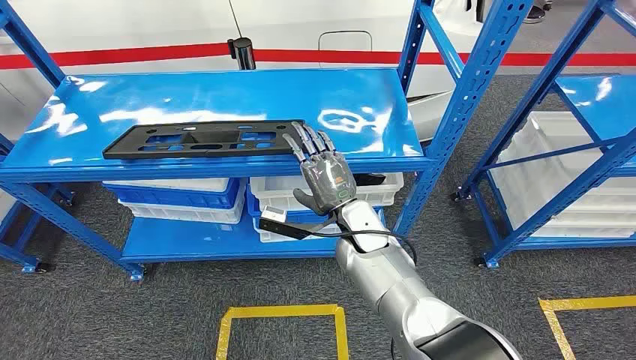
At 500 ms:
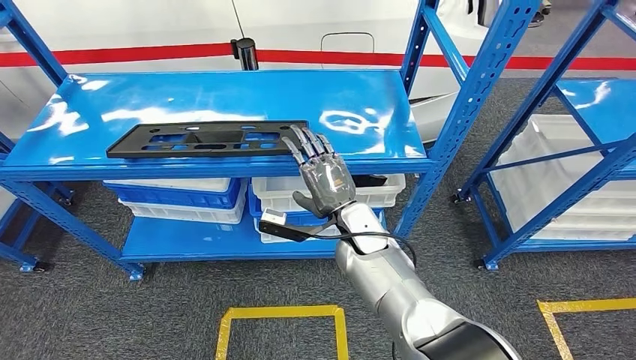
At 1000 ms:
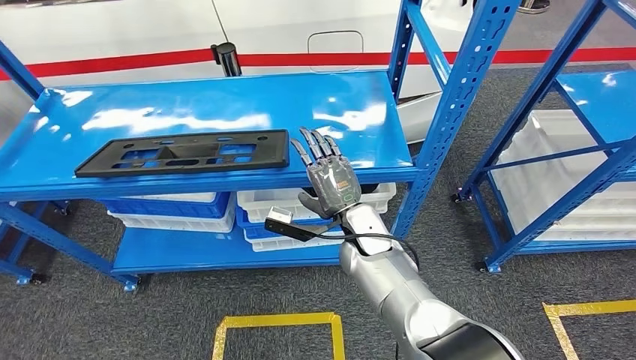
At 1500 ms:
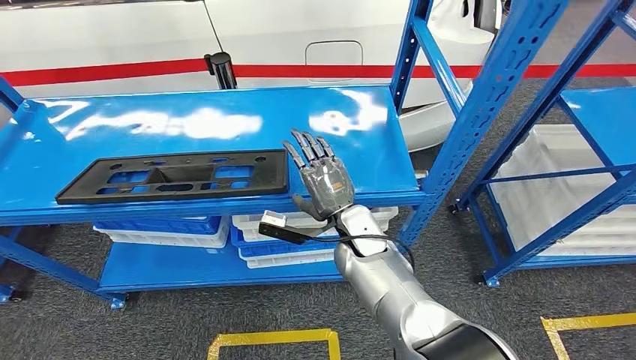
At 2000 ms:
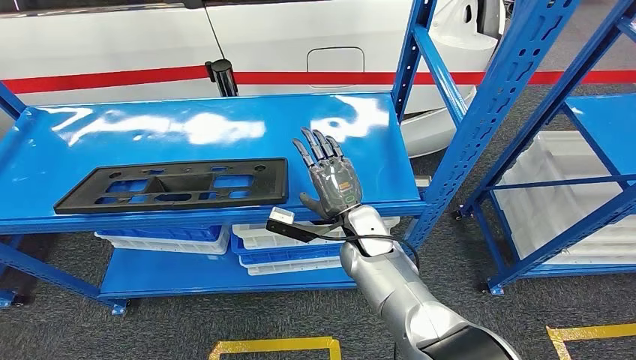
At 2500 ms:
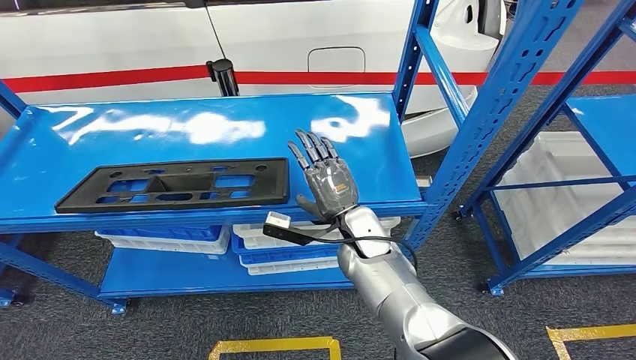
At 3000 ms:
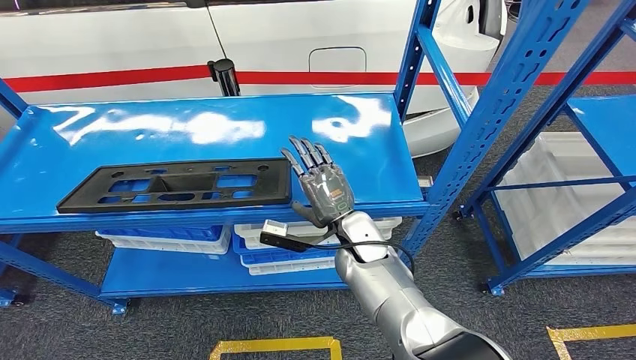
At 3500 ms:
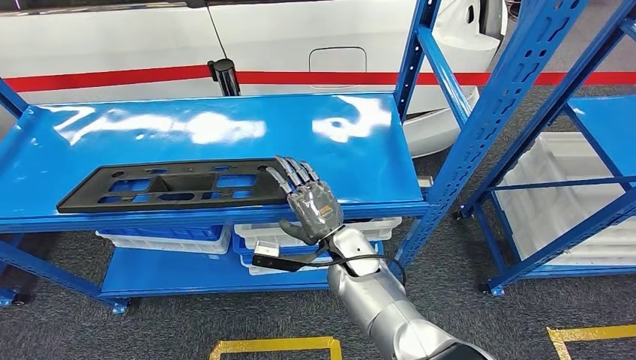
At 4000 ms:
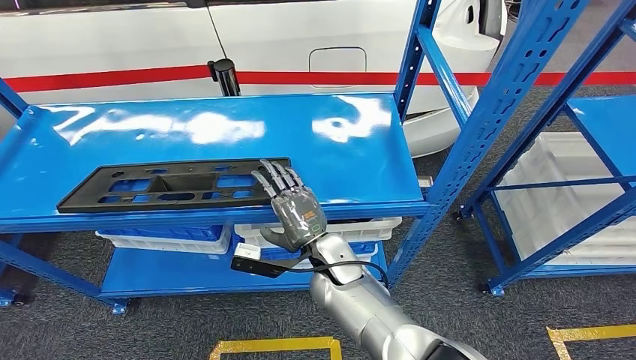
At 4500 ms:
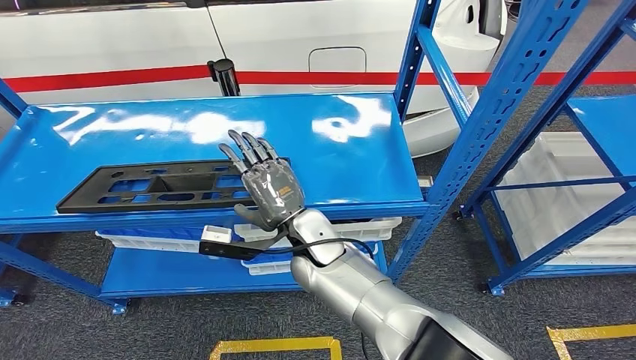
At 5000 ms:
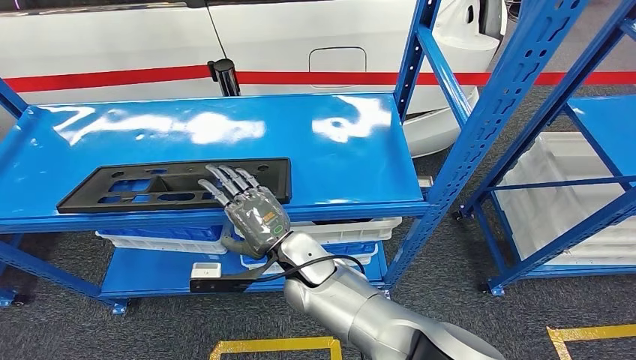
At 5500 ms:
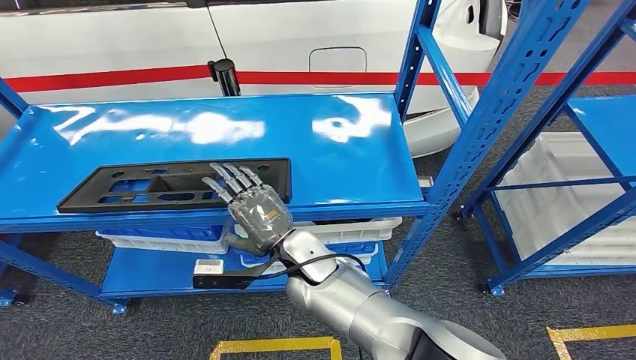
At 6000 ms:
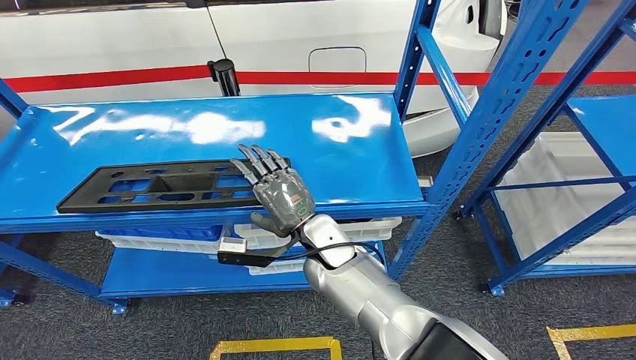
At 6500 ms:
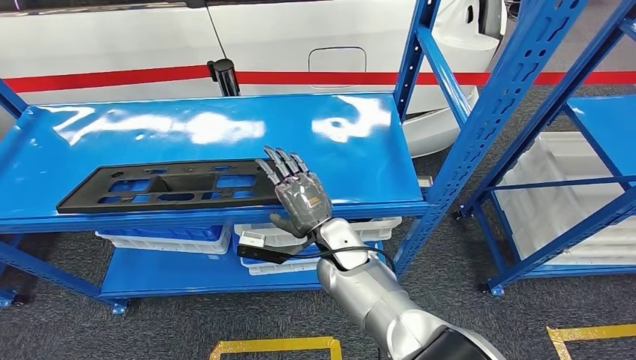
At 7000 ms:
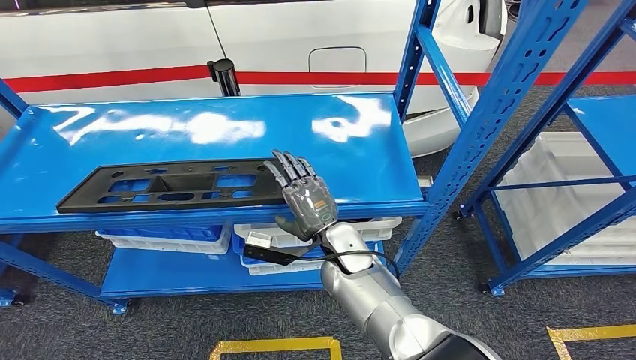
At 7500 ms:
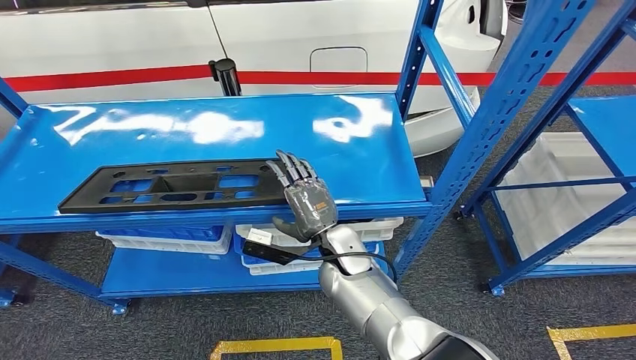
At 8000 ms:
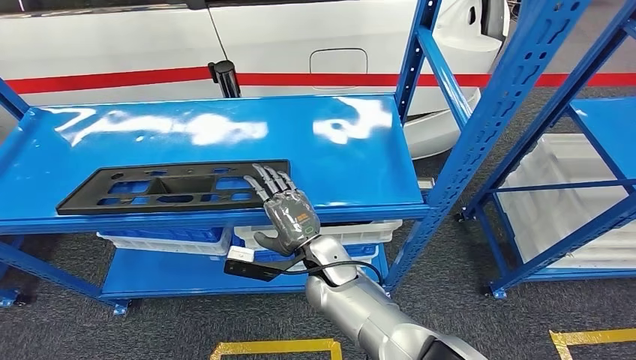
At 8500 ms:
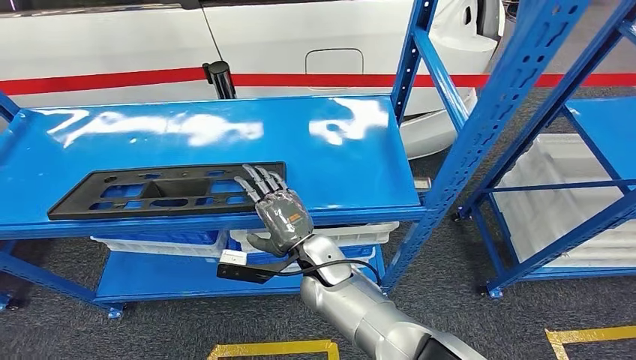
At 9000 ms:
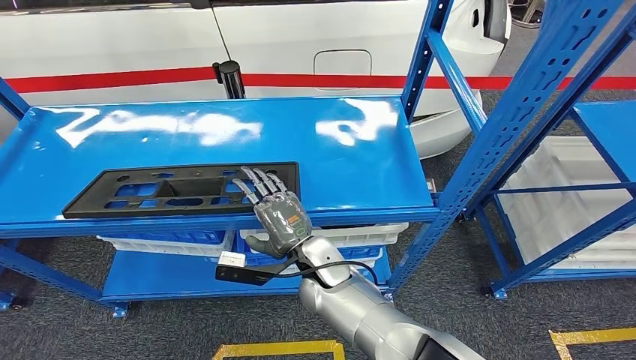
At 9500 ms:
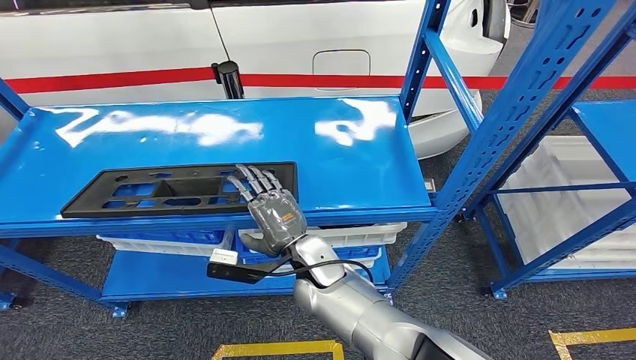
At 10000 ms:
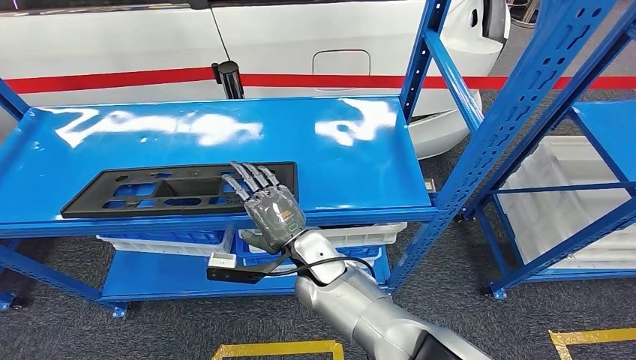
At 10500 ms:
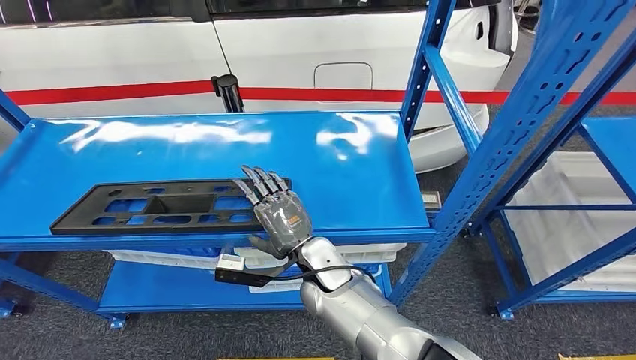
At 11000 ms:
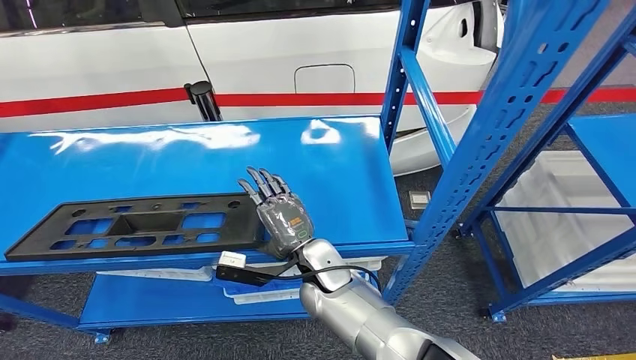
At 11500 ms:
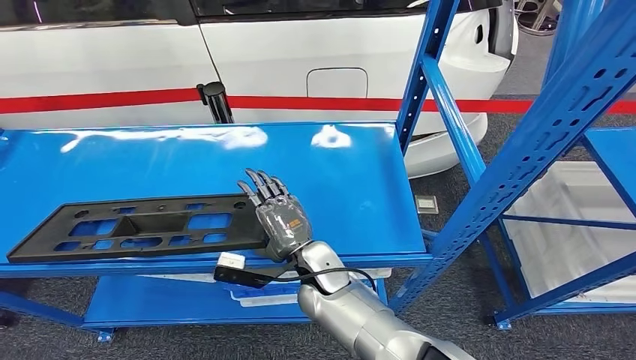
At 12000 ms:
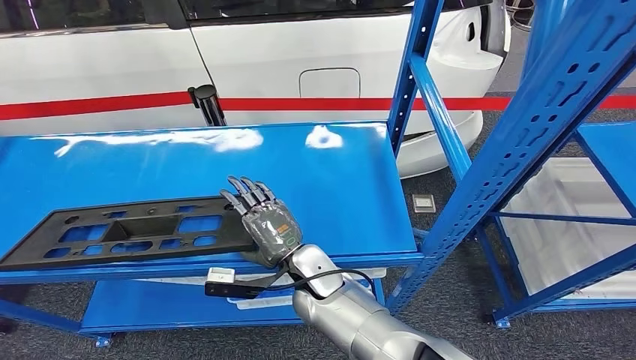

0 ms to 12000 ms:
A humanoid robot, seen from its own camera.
2000 ms to 4000 ms: The right hand shifts some 5 cm to the left.
6000 ms to 8000 ms: There are only small adjustments of the hands.

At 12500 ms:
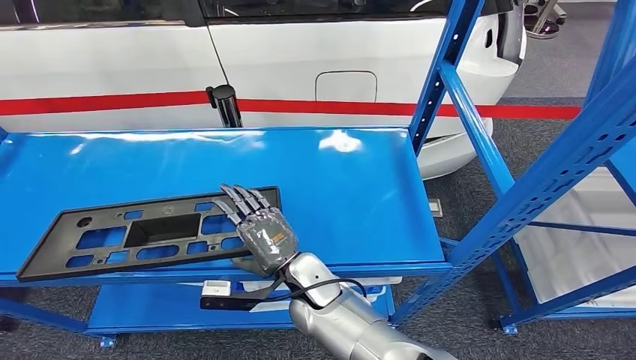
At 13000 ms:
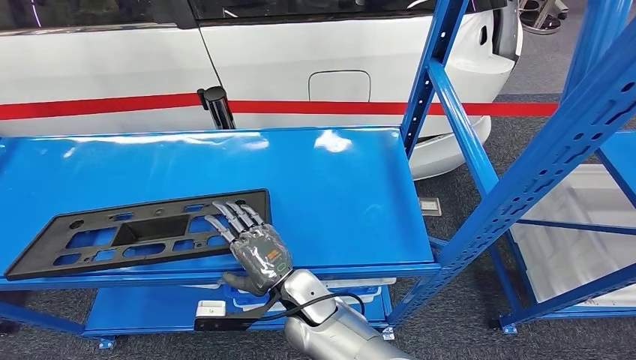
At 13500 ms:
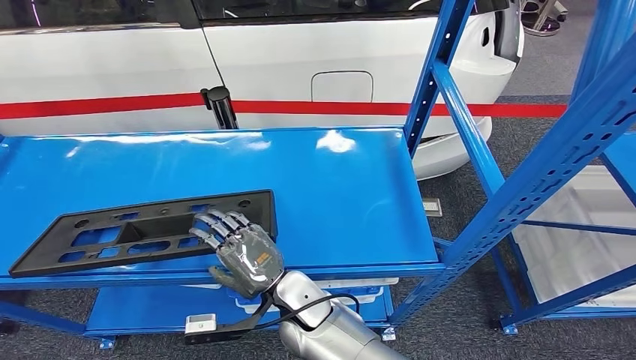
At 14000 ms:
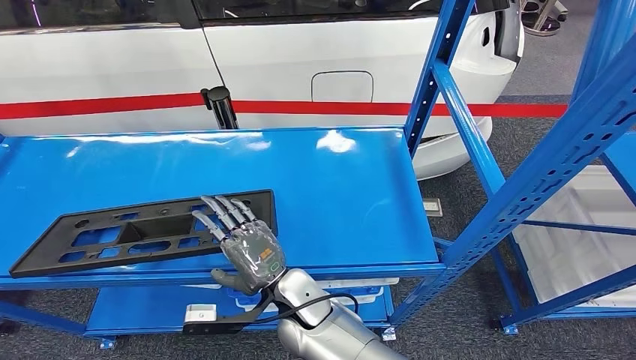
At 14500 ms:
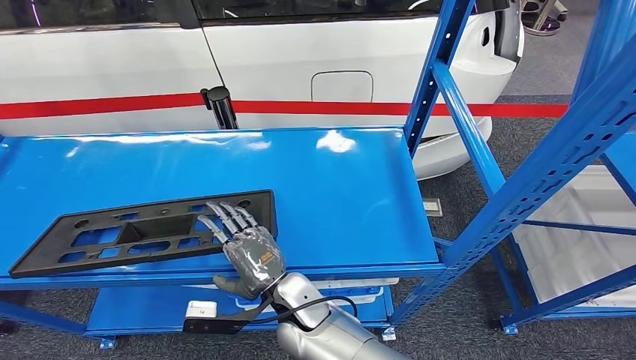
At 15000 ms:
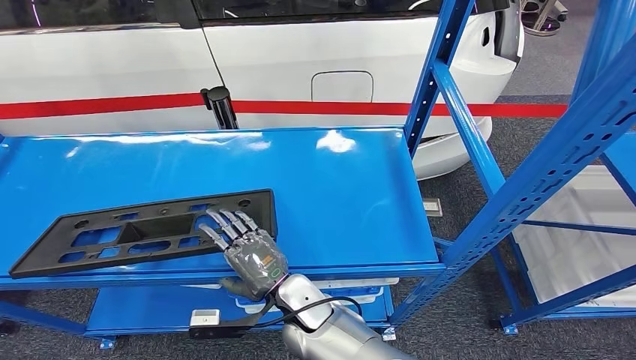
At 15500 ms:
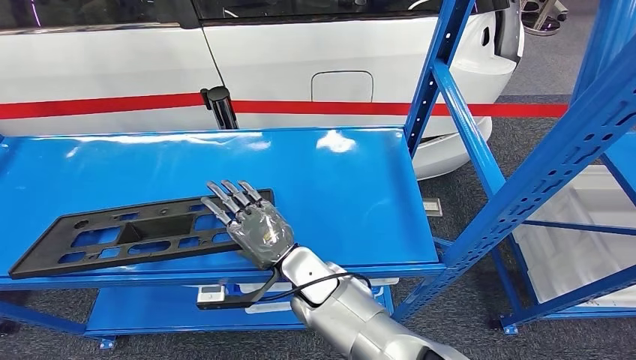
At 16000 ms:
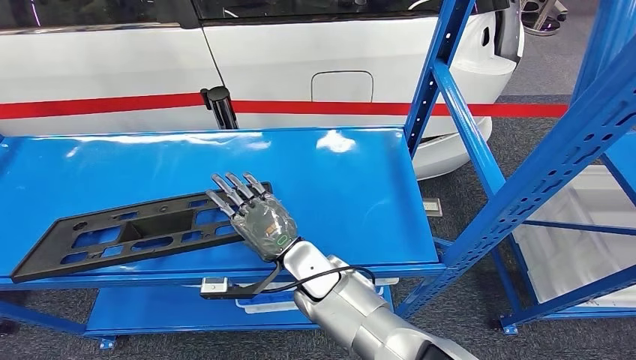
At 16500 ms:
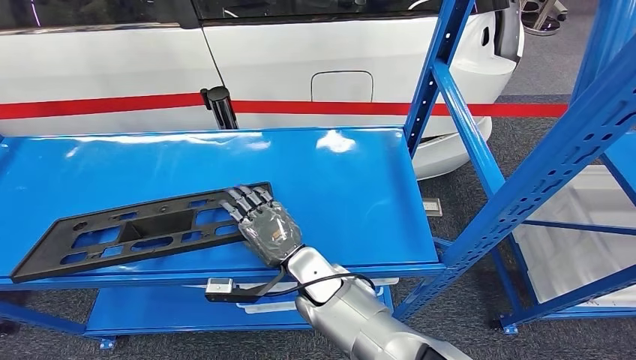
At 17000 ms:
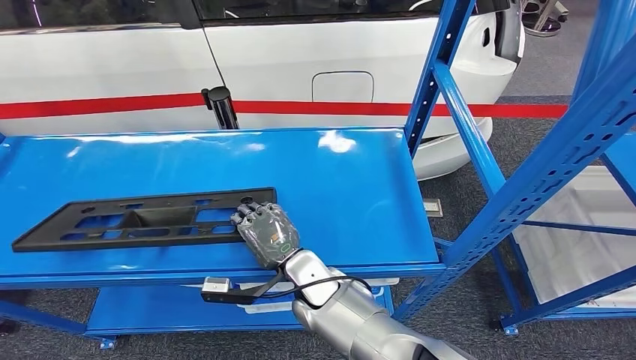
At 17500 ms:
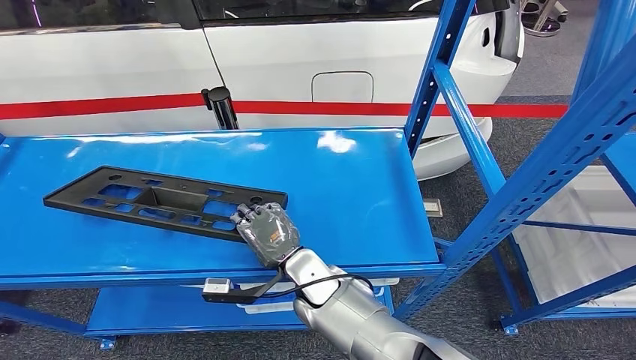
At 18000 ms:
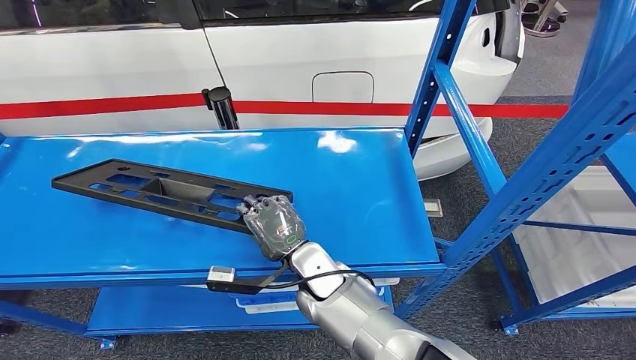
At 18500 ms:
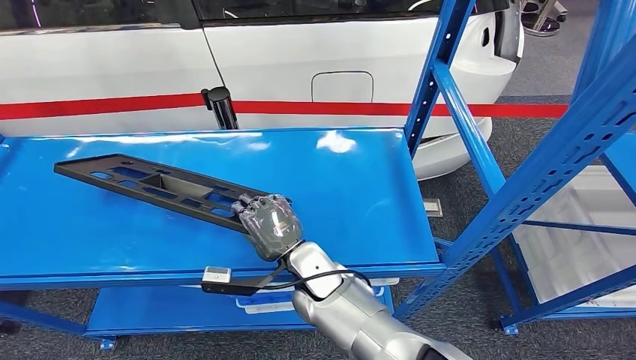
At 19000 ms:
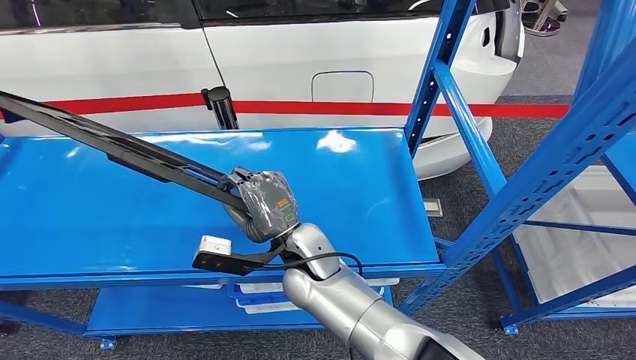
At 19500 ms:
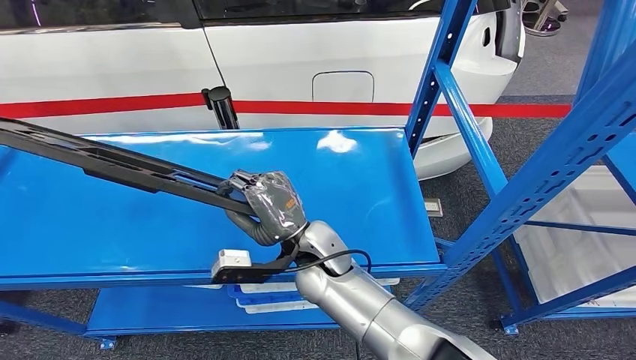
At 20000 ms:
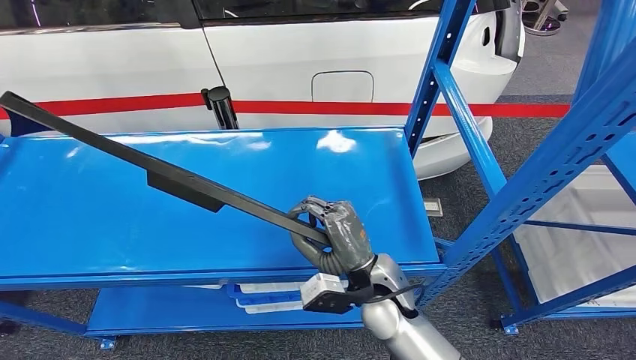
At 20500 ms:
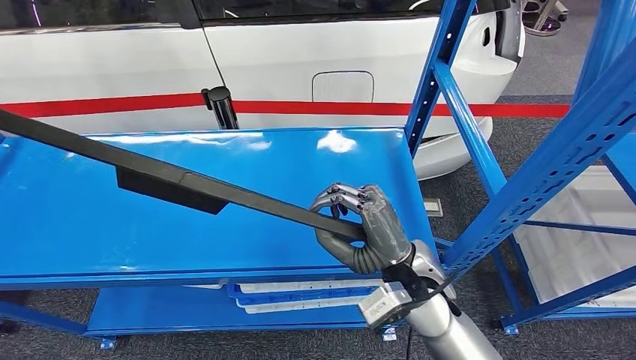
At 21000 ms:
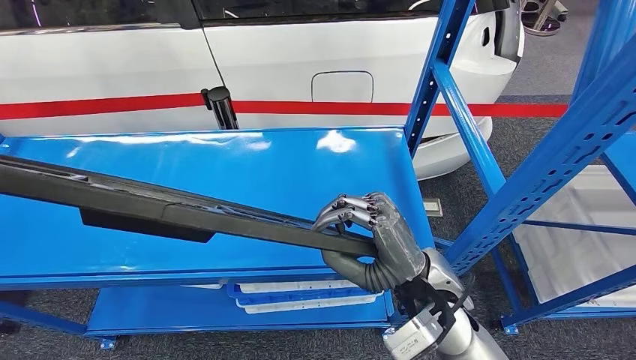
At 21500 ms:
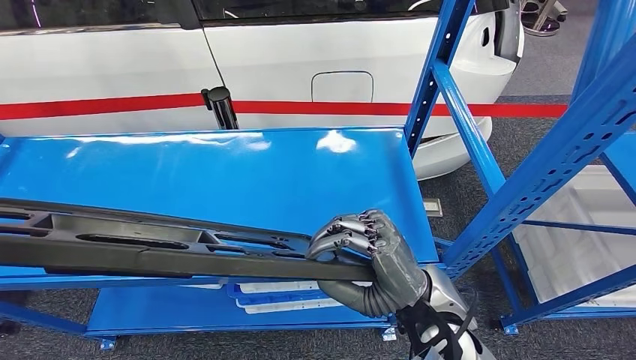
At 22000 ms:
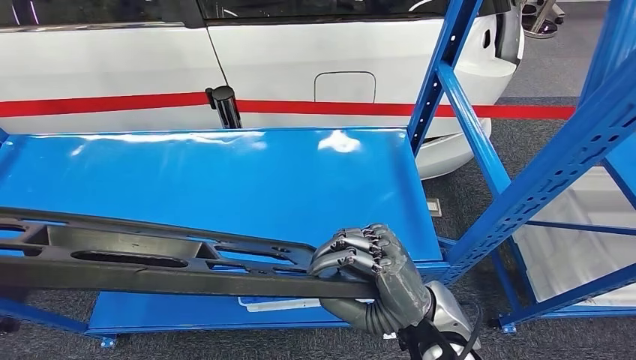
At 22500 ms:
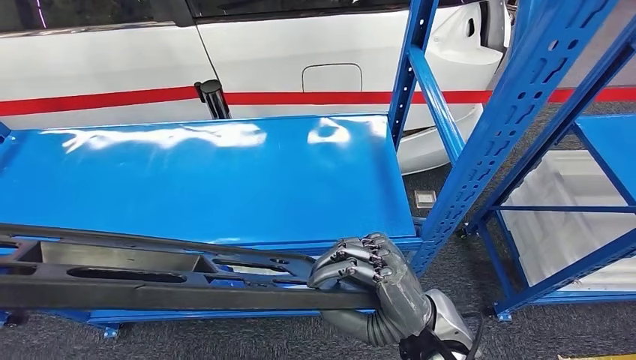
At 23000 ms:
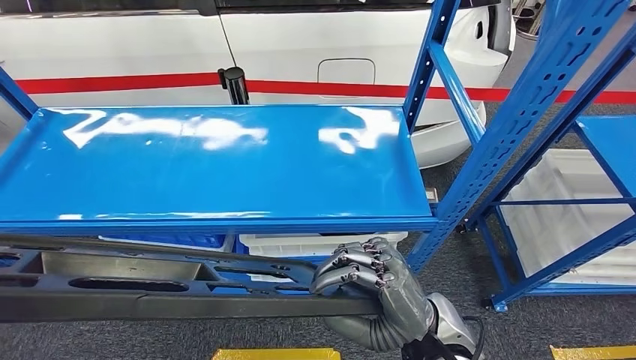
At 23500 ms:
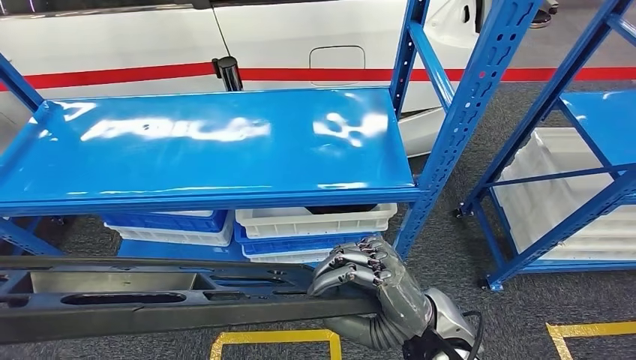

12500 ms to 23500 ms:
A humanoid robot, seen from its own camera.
Step, 12500 ms to 21000 ms: Pick up the large material from the shelf.
14500 ms to 16000 ms: The right hand shifts some 5 cm forward.
18000 ms to 20000 ms: The right hand goes some 10 cm to the right.
20000 ms to 21500 ms: The right hand heads upward, covering some 10 cm.
